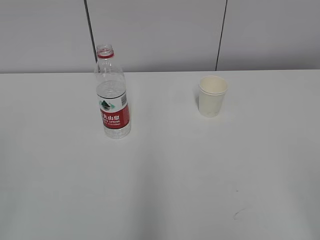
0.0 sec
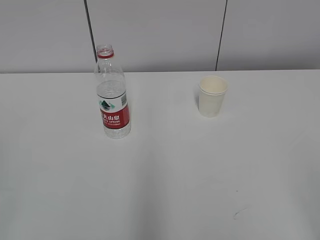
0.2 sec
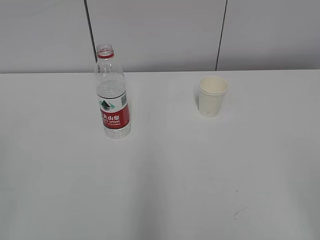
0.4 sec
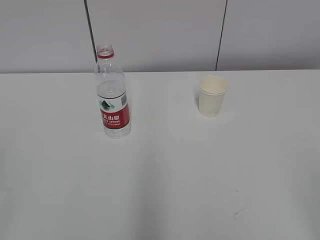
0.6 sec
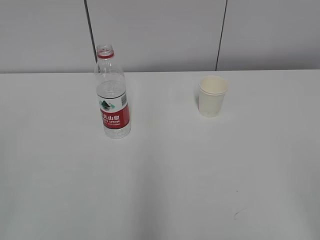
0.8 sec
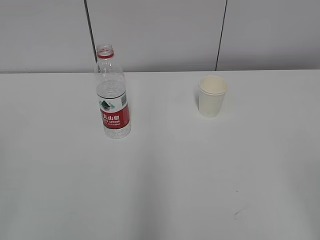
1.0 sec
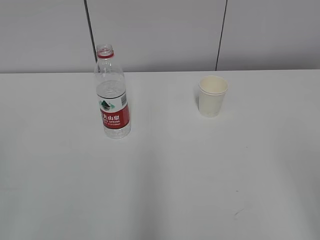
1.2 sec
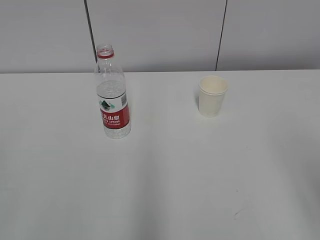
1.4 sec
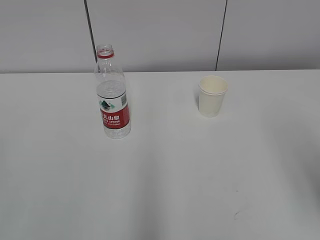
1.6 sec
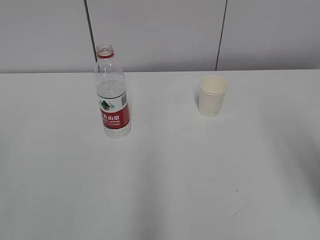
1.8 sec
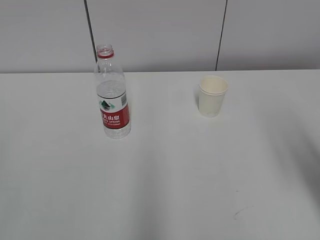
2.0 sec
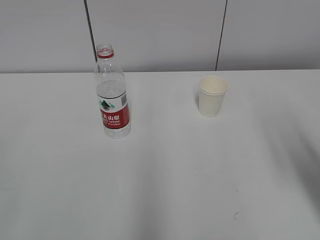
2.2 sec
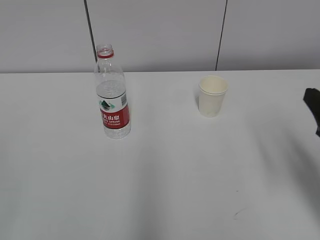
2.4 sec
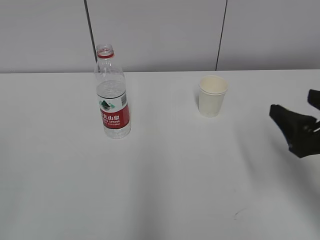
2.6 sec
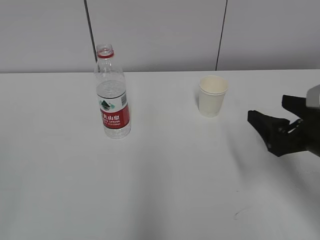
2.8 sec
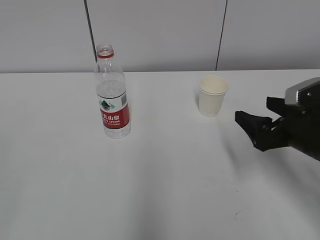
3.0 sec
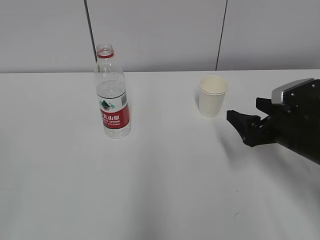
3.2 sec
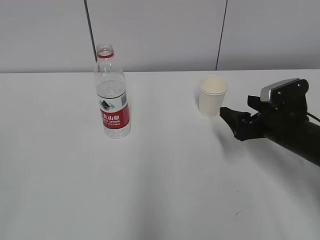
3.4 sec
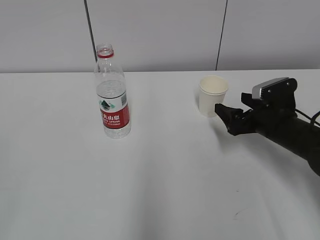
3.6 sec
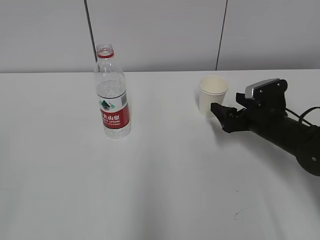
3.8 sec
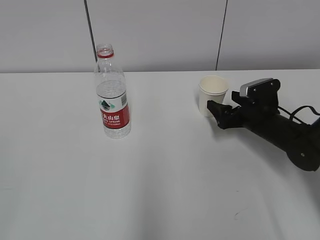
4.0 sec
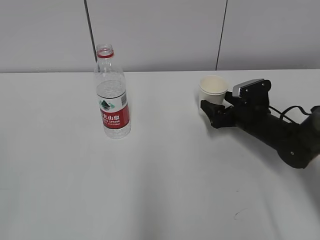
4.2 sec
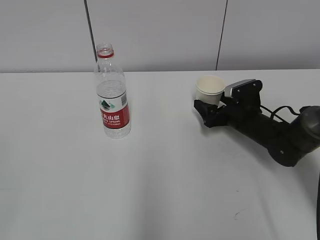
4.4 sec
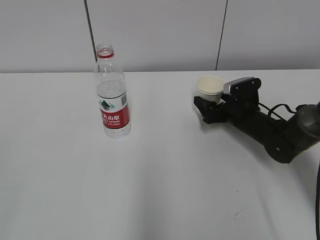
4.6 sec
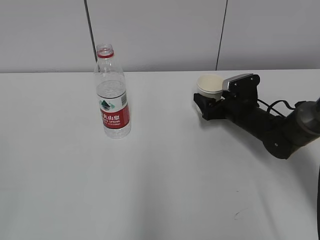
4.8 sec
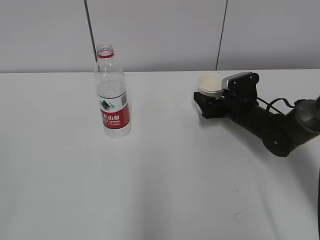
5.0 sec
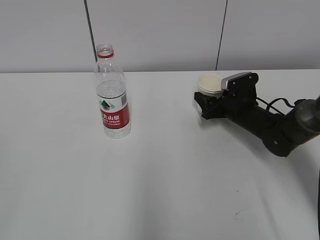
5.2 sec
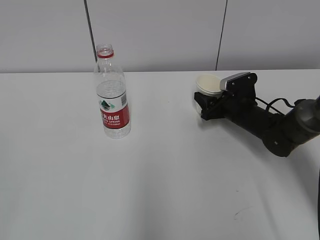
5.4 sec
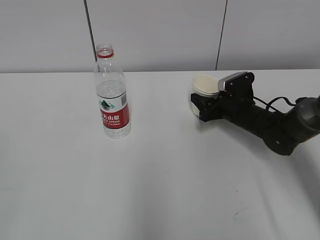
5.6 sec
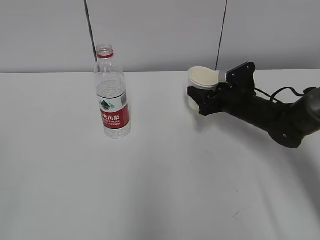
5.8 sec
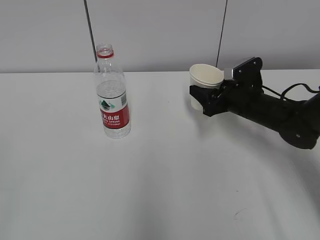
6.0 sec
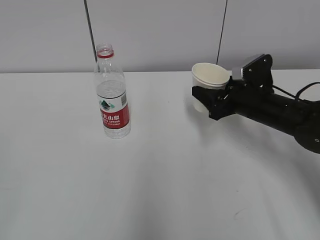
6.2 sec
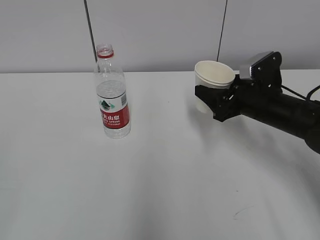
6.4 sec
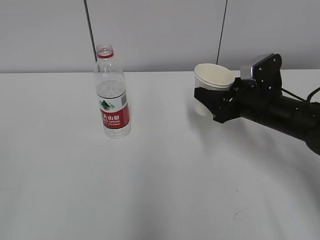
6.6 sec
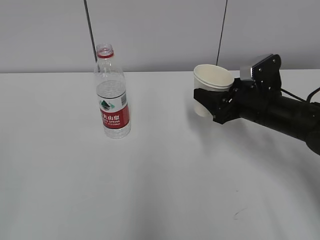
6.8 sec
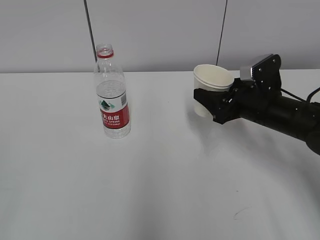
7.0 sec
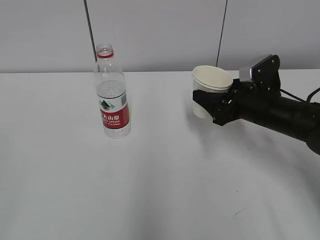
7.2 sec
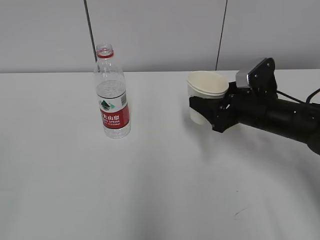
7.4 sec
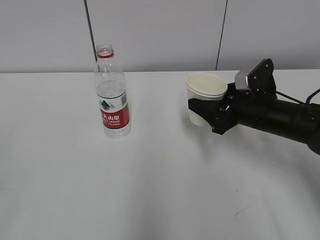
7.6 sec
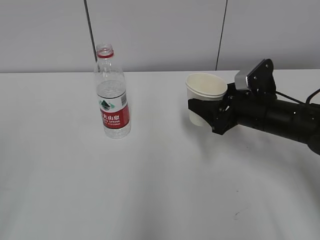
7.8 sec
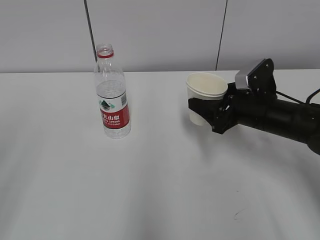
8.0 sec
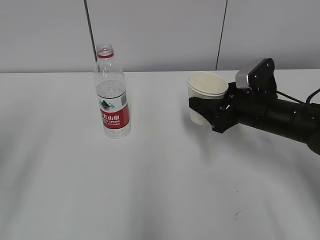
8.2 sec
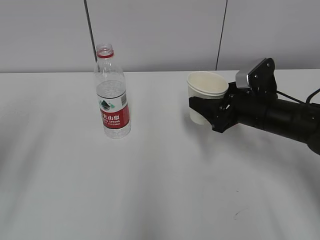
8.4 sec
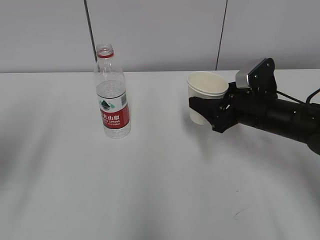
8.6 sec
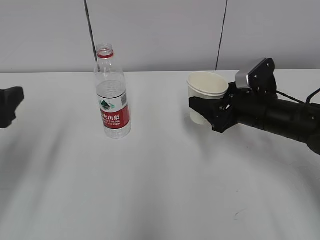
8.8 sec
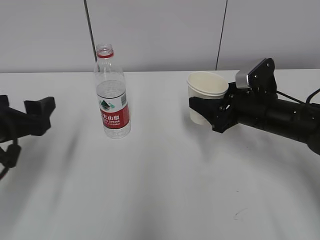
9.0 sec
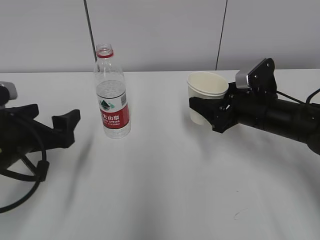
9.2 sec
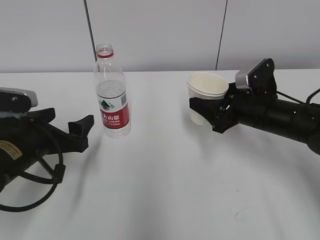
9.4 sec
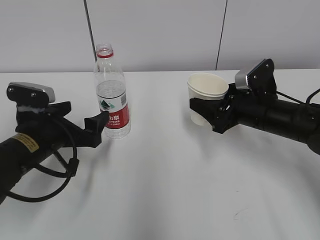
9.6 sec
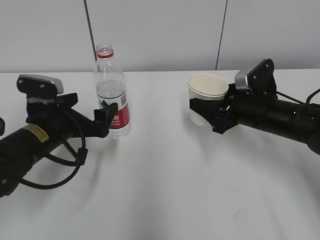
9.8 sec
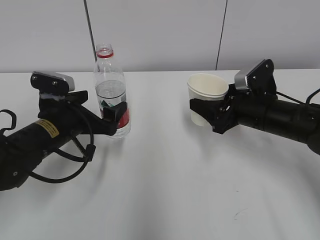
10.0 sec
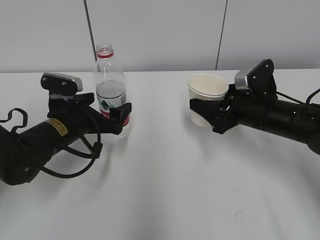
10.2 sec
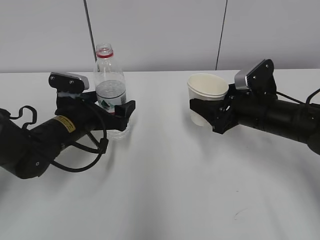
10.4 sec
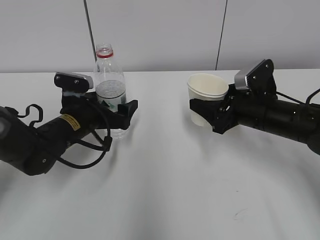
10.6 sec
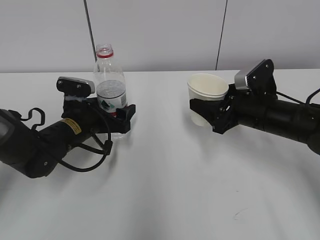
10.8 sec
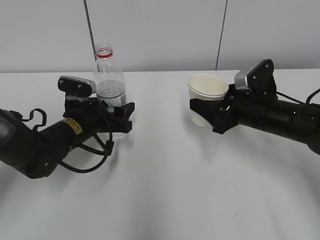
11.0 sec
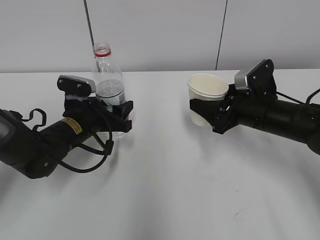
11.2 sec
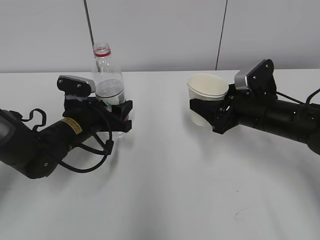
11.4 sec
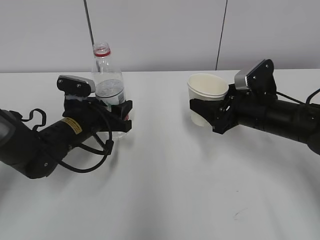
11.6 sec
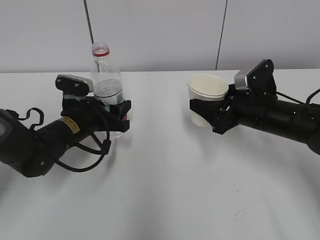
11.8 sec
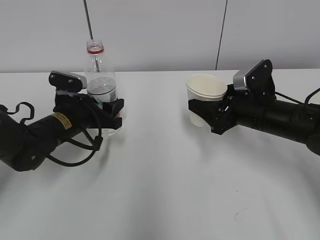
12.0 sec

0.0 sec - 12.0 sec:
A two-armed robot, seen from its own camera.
Step, 0.0 sec - 4.6 sec: Grab the paper cup with the right hand.
Step, 4.8 sec - 9.8 sec: Grab the water bottle with the left hand.
1.6 sec - 3.0 sec: The right gripper moves forward and downward, approximately 20 cm, and opens.
3.0 sec - 4.4 sec: The right gripper is displaced forward and downward by about 20 cm.
4.4 sec - 6.0 sec: The right gripper shifts approximately 5 cm upward, and closes its fingers.
6.0 sec - 7.6 sec: The right gripper moves backward, approximately 5 cm.
7.6 sec - 9.0 sec: The left gripper is displaced forward by approximately 25 cm, and opens.
9.0 sec - 10.4 sec: The left gripper shifts about 15 cm forward, downward and to the right.
10.4 sec - 12.0 sec: The left gripper closes its fingers.

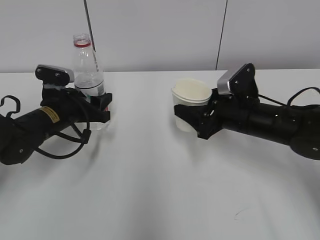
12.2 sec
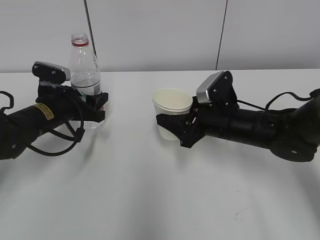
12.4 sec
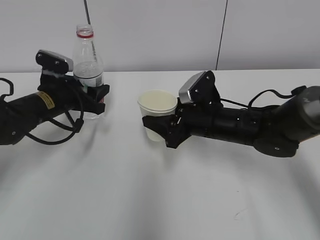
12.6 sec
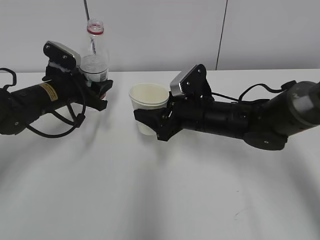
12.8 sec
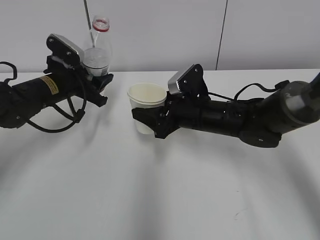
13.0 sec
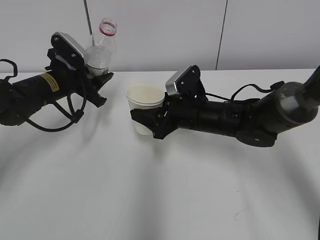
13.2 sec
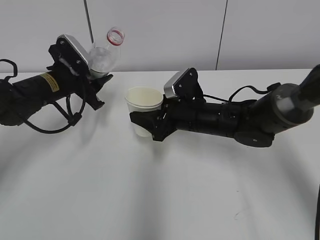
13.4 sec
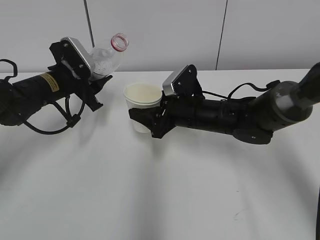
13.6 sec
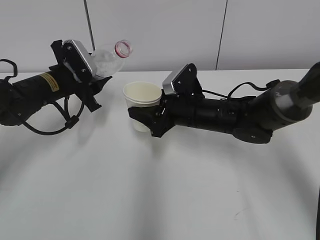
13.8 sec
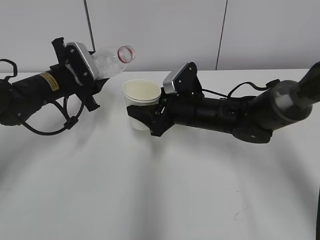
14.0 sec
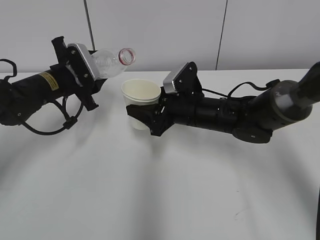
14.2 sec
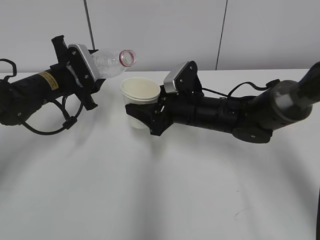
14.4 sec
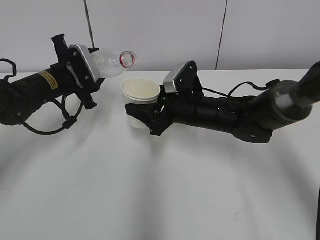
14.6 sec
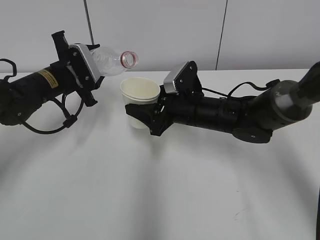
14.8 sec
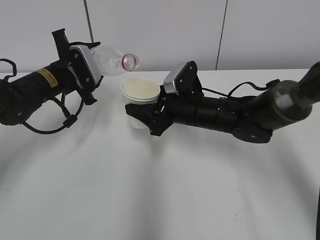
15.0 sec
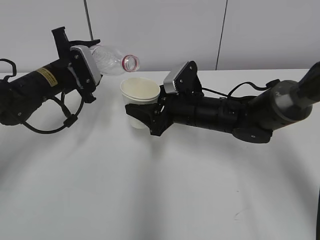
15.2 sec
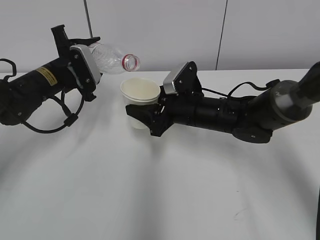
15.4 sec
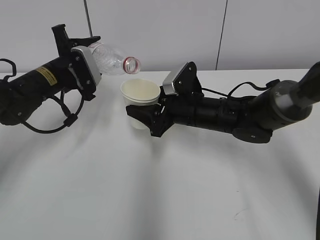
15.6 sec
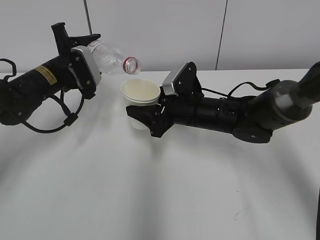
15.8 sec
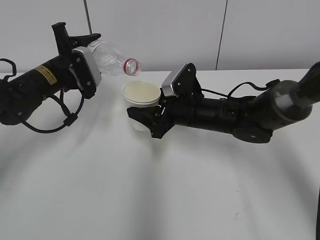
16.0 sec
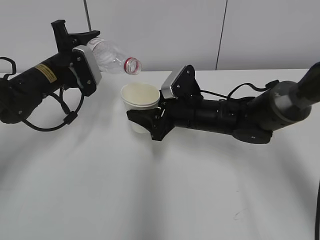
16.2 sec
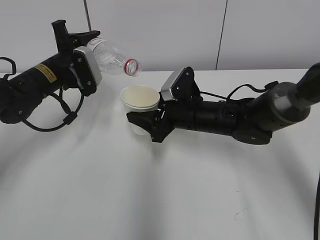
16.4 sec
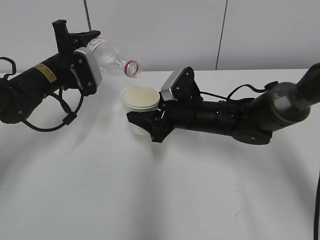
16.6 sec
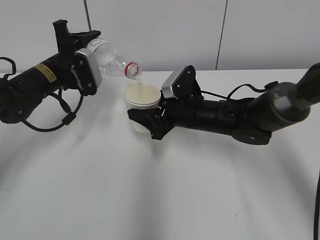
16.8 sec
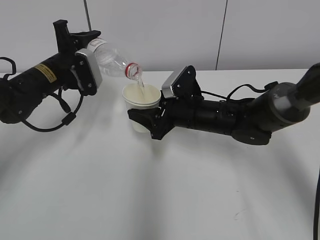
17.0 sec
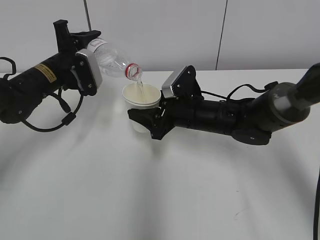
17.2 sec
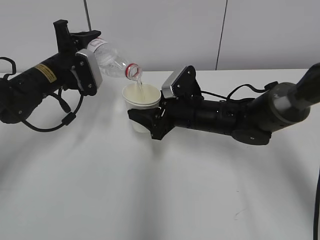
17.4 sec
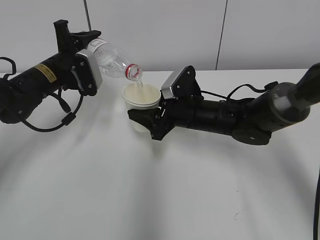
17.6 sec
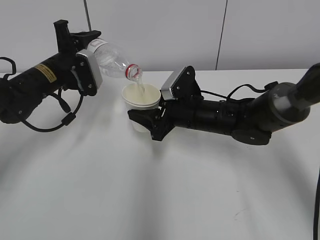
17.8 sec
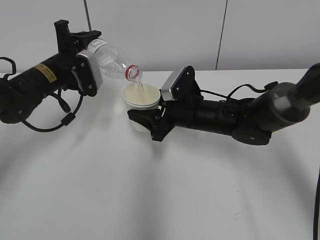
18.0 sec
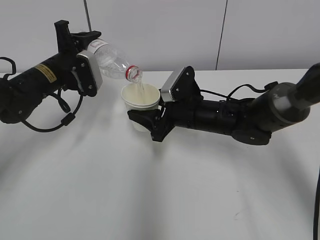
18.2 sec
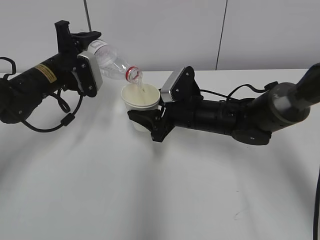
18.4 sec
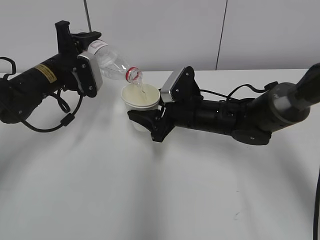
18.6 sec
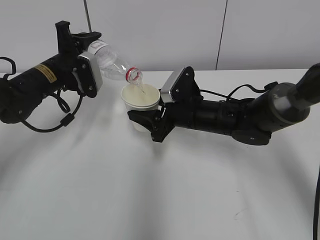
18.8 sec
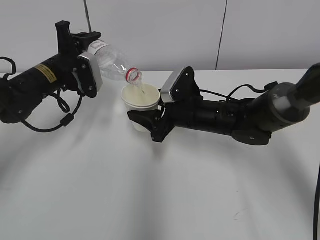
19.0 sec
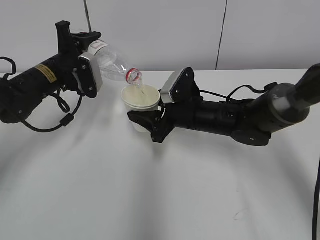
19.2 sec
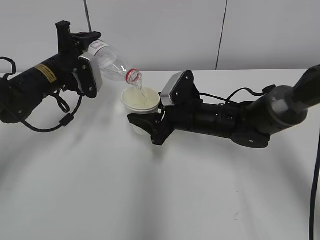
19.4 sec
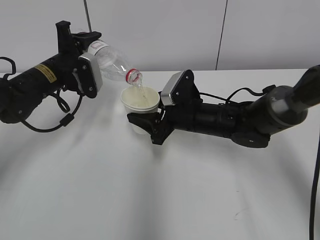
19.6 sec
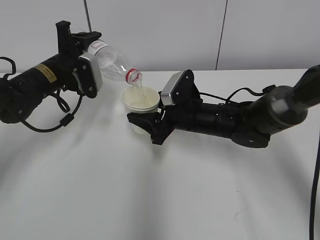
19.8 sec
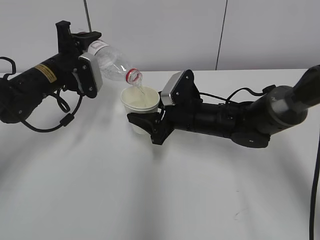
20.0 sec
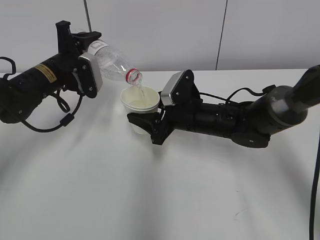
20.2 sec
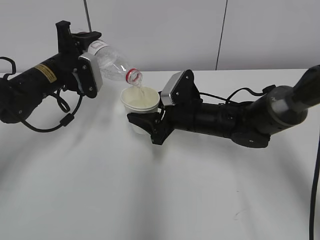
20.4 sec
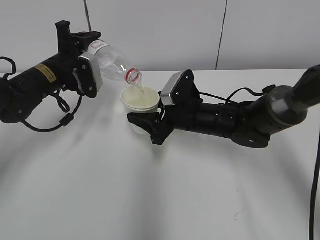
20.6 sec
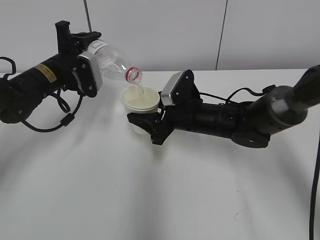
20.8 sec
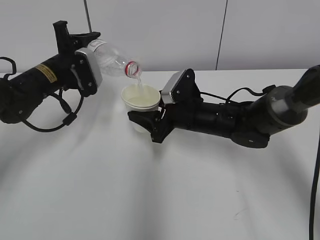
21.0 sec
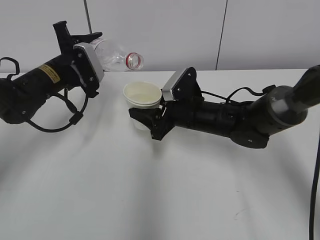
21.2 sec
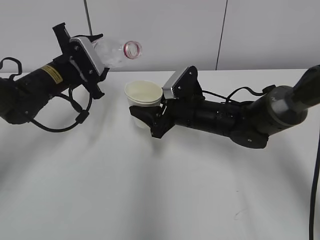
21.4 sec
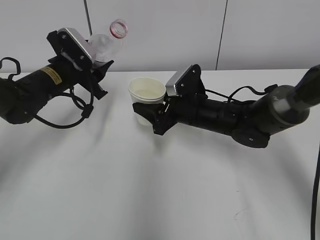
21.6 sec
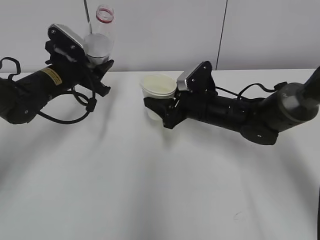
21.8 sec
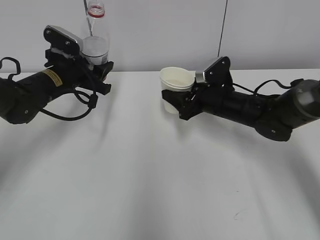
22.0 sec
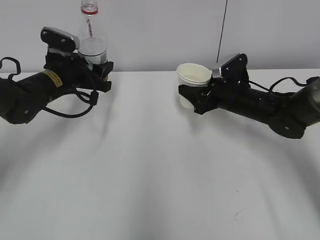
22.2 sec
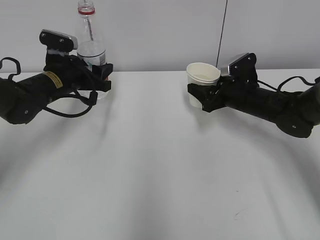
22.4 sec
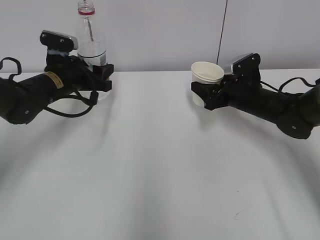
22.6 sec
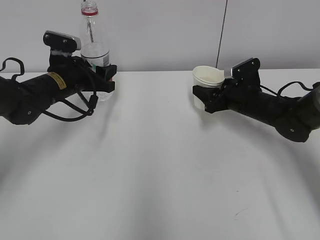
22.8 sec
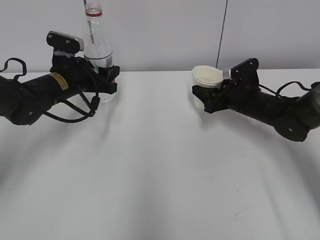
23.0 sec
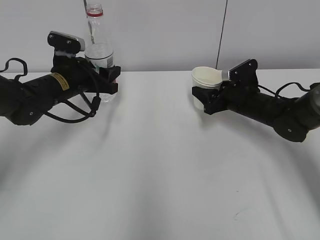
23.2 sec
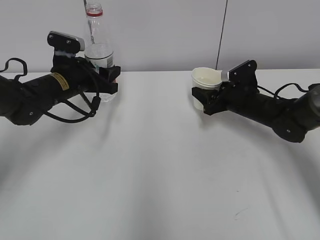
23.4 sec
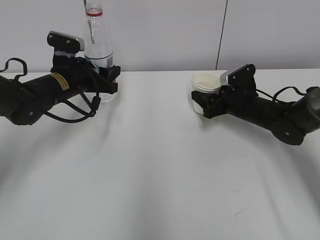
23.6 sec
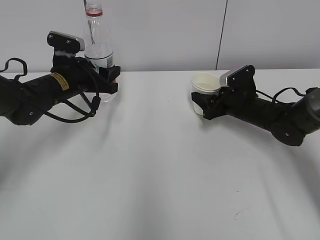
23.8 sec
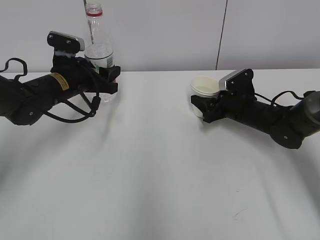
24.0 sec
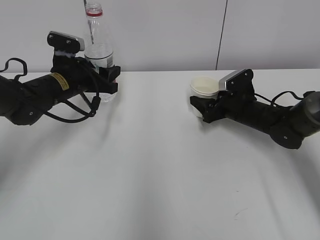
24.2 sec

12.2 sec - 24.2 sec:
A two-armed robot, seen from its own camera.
Step, 14.0 sec - 17.6 sec: Fill water with the right hand.
Step, 14.0 sec - 17.6 sec: Pour water with the left hand.
Step, 18.6 sec - 20.2 sec: Place the paper cup with the right hand.
Step, 20.4 sec - 22.8 sec: Place the water bottle with the left hand.
12.2 sec - 13.8 sec: The left gripper changes place by roughly 5 cm; the right gripper travels to the left by about 10 cm.
15.2 sec - 16.6 sec: The grippers move only a little.
16.6 sec - 18.2 sec: Both grippers stay about where they are.
18.2 sec - 19.8 sec: Neither gripper changes place.
19.8 sec - 21.2 sec: The grippers make only small movements.
21.2 sec - 22.6 sec: The right gripper shifts some 10 cm to the right.
22.6 sec - 24.2 sec: There are only small adjustments of the grippers.
